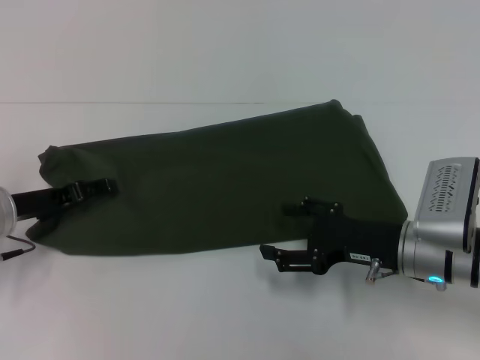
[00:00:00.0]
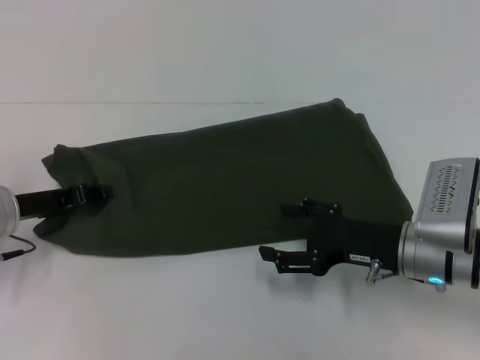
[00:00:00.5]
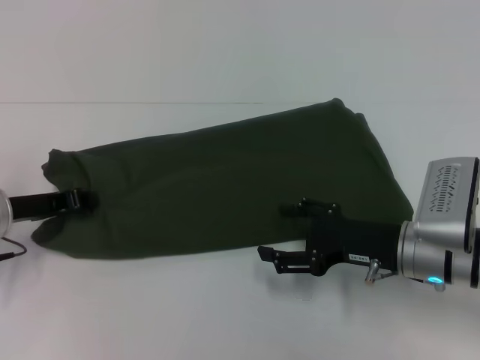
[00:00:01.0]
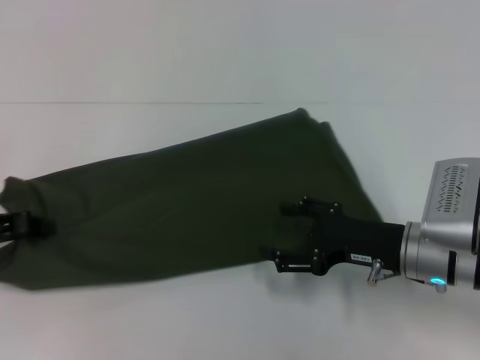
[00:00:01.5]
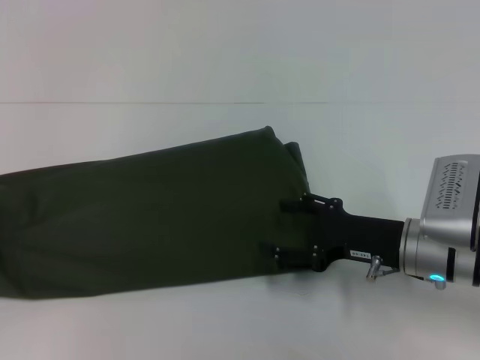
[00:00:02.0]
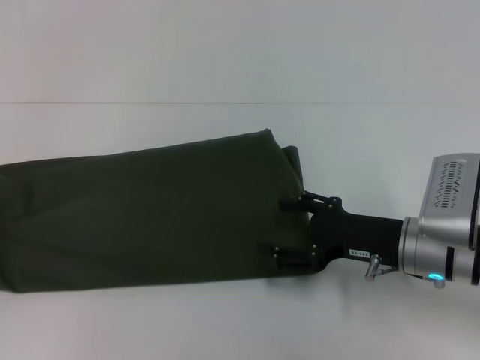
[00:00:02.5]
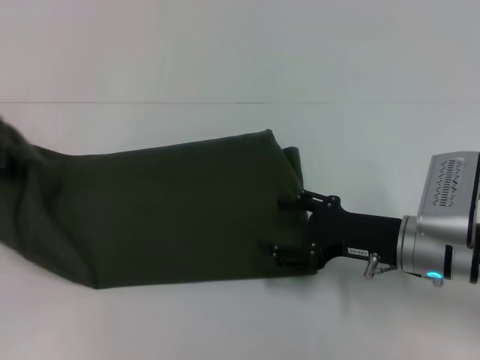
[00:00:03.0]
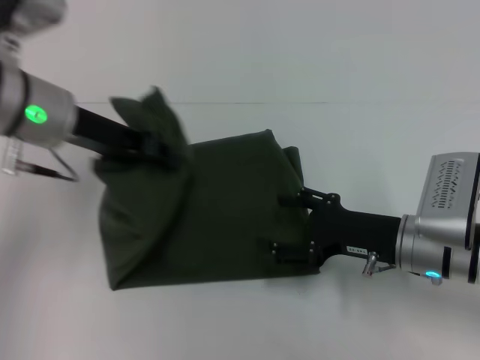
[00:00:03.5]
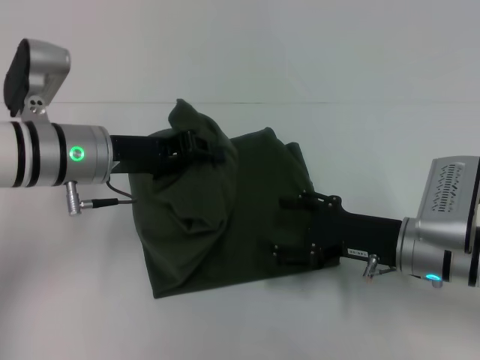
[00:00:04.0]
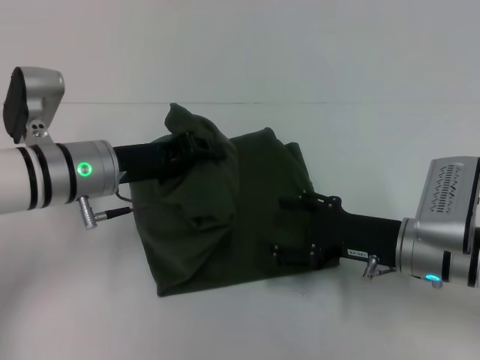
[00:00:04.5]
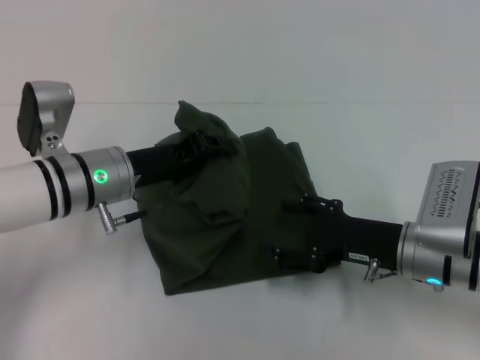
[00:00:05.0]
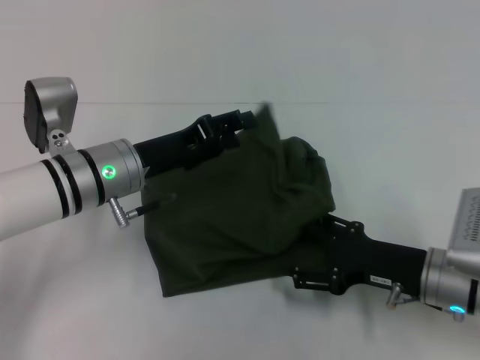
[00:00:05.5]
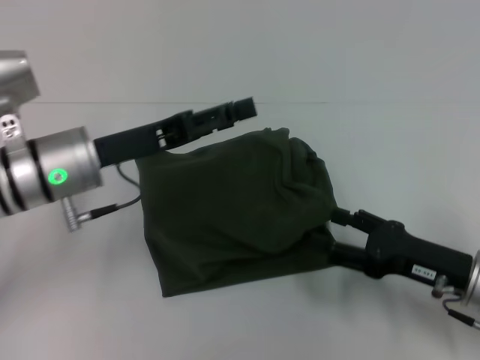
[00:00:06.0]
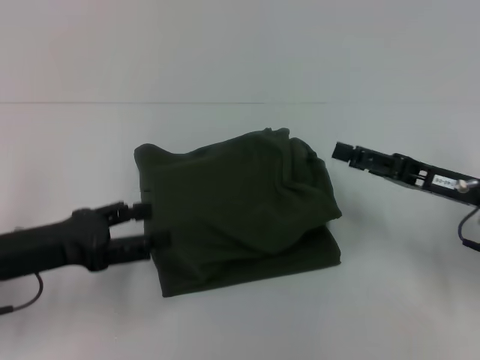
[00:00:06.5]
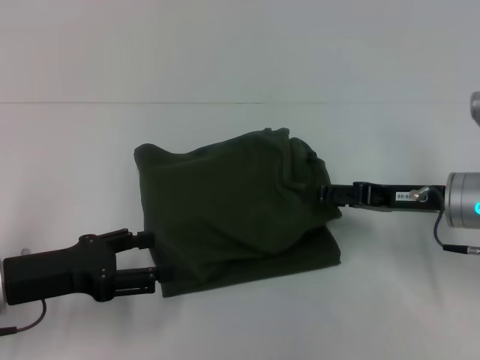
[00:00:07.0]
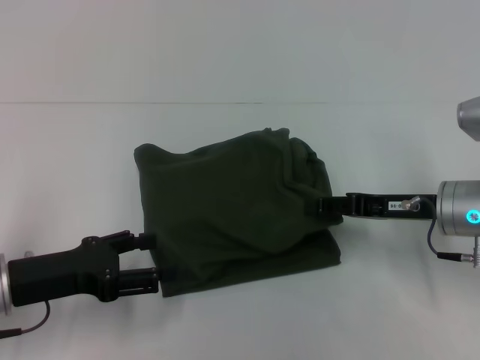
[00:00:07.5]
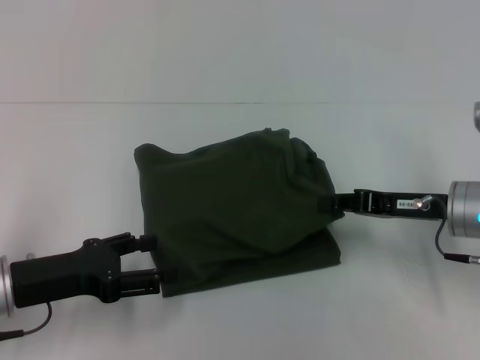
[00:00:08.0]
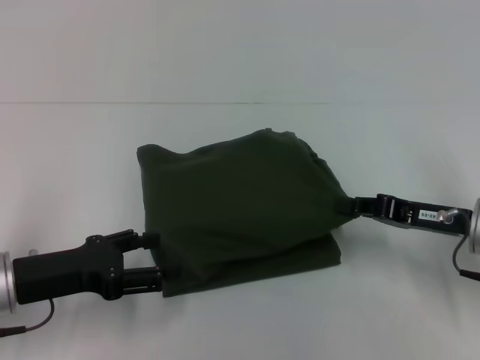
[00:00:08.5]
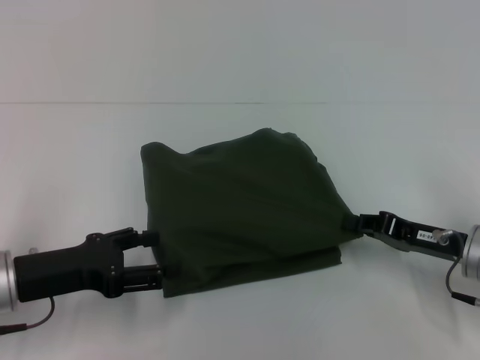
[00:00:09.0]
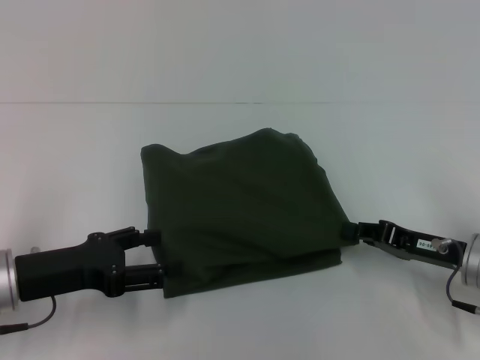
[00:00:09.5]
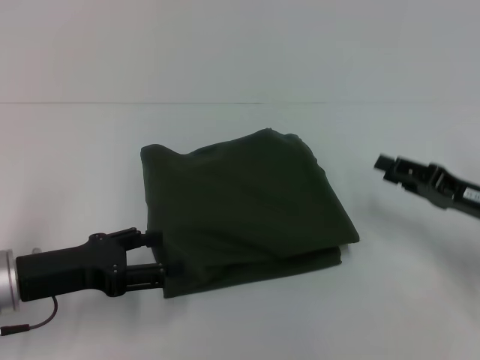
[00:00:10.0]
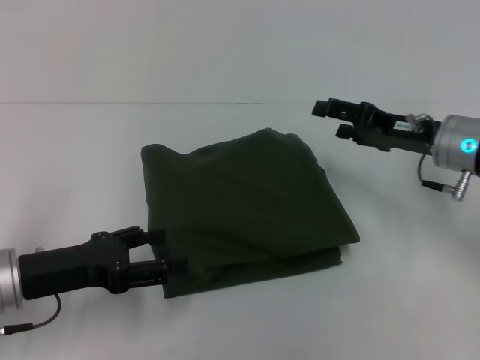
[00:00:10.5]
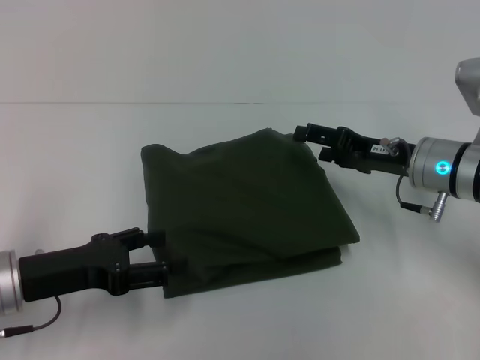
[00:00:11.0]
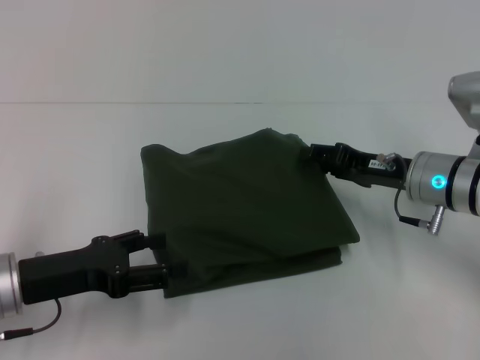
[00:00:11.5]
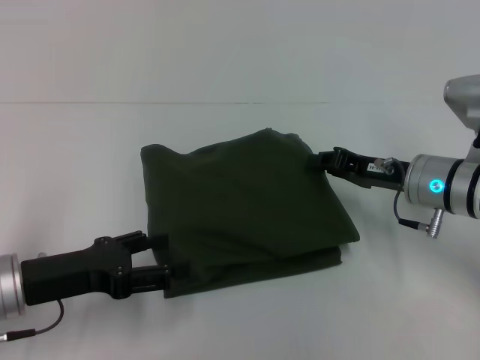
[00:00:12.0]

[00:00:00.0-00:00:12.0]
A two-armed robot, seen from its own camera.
Step, 00:00:00.0 to 00:00:05.5: Fold the clothes with your left hand.
00:00:00.0 to 00:00:02.0: The left gripper moves to the left, approximately 10 cm, and closes its fingers.
00:00:02.0 to 00:00:04.0: The left gripper is displaced to the right by about 20 cm.
00:00:04.0 to 00:00:06.0: The left gripper opens. The right gripper is displaced to the right by about 5 cm.
00:00:06.0 to 00:00:08.0: The right gripper travels forward by about 10 cm, and closes up. Meanwhile the left gripper goes about 15 cm backward, to the left and downward.
00:00:08.0 to 00:00:10.0: The right gripper moves to the right, approximately 5 cm.
00:00:10.0 to 00:00:12.0: The right gripper shifts some 10 cm to the left and forward, and opens, then closes once more.

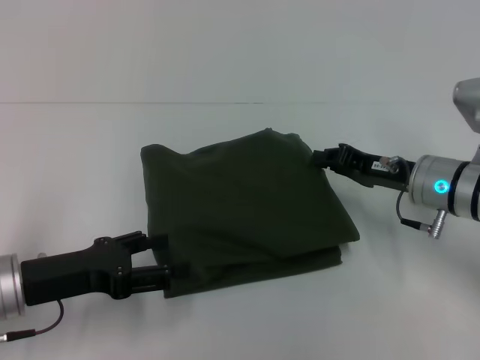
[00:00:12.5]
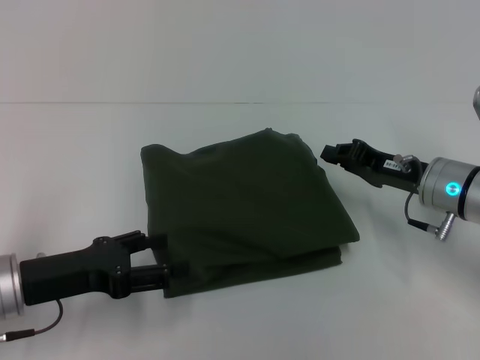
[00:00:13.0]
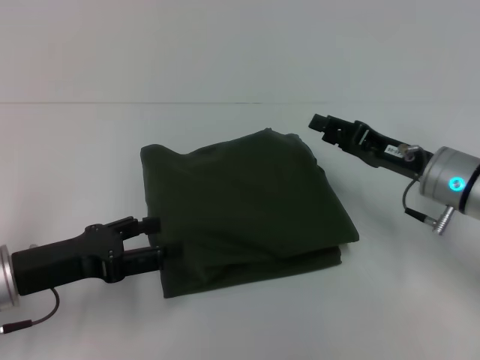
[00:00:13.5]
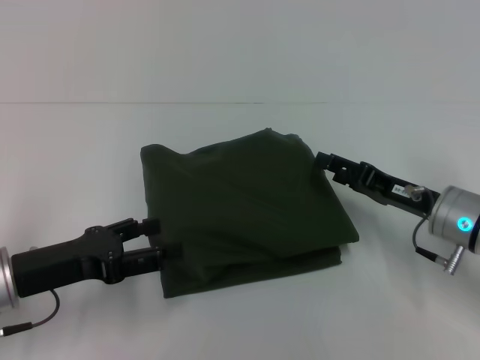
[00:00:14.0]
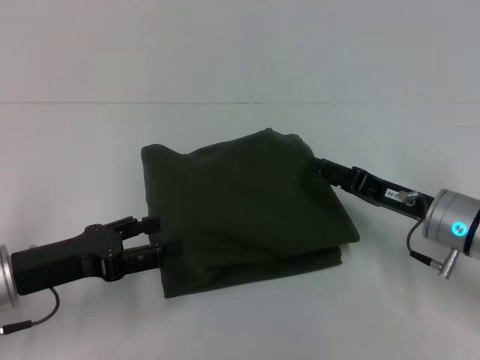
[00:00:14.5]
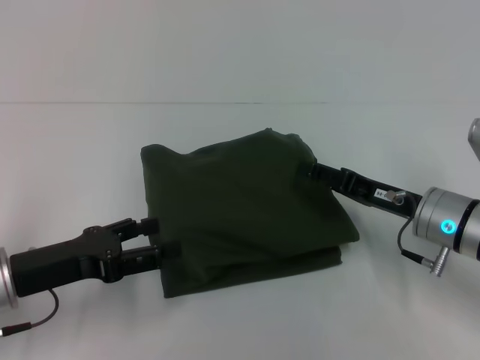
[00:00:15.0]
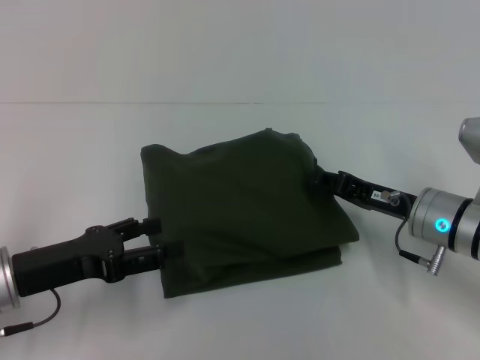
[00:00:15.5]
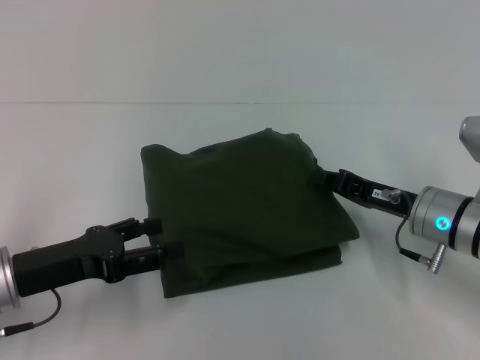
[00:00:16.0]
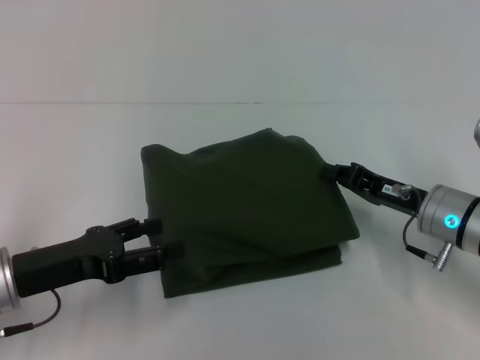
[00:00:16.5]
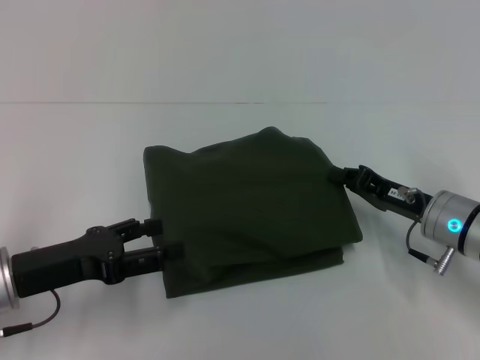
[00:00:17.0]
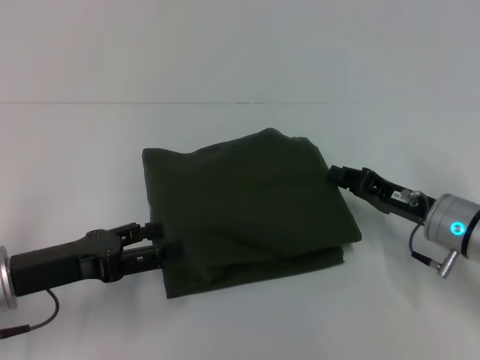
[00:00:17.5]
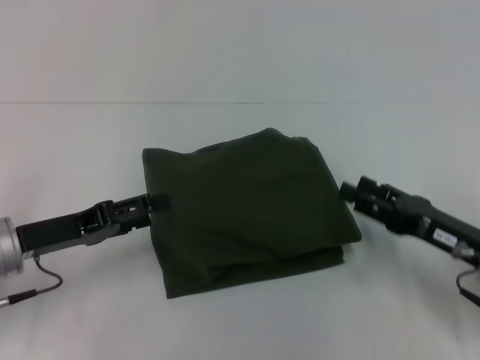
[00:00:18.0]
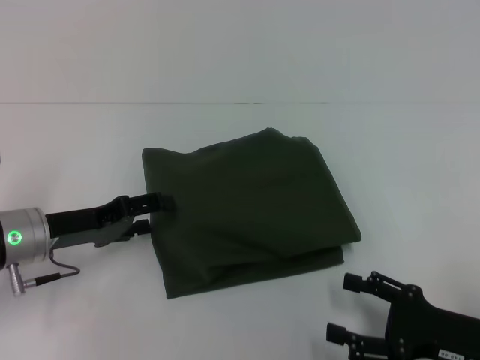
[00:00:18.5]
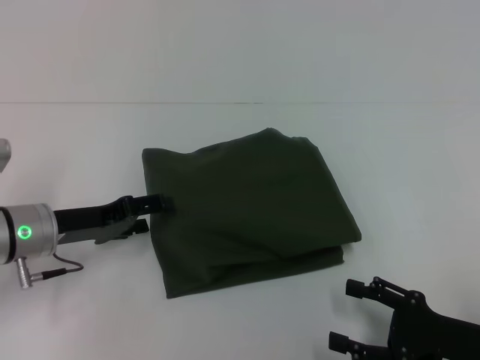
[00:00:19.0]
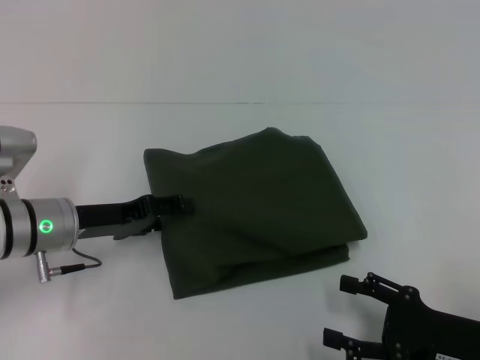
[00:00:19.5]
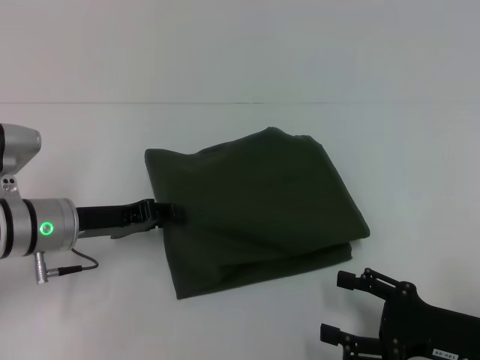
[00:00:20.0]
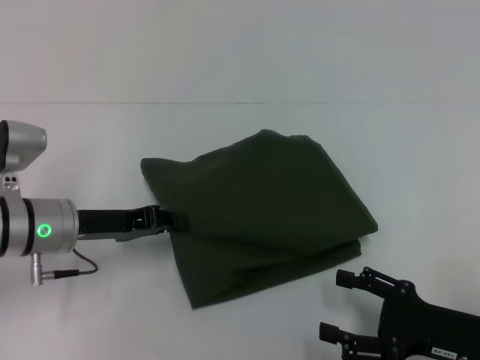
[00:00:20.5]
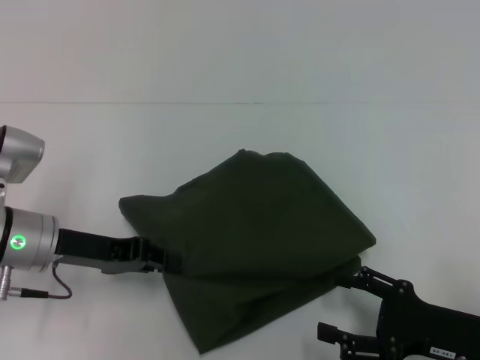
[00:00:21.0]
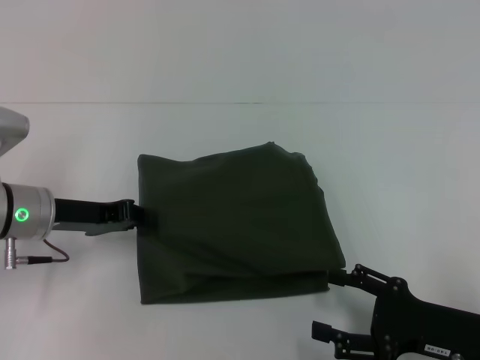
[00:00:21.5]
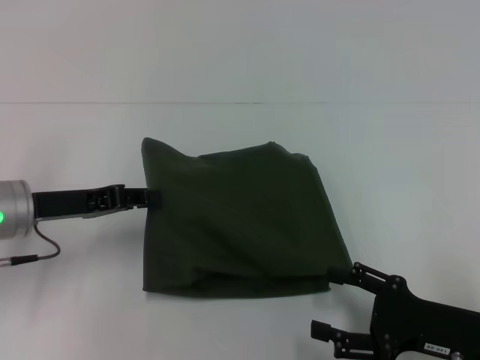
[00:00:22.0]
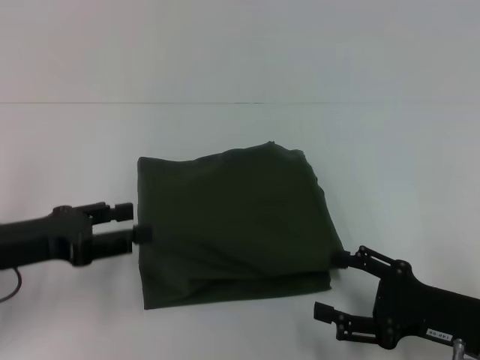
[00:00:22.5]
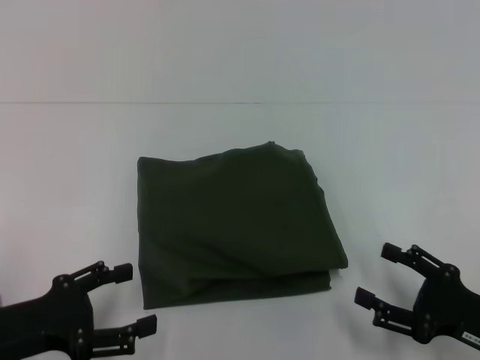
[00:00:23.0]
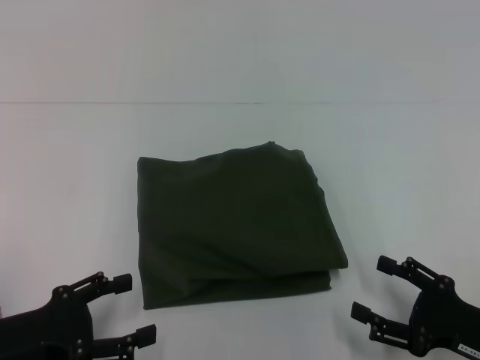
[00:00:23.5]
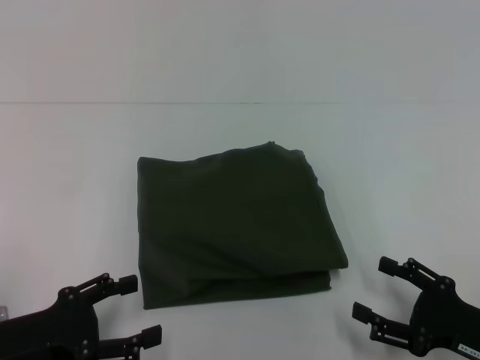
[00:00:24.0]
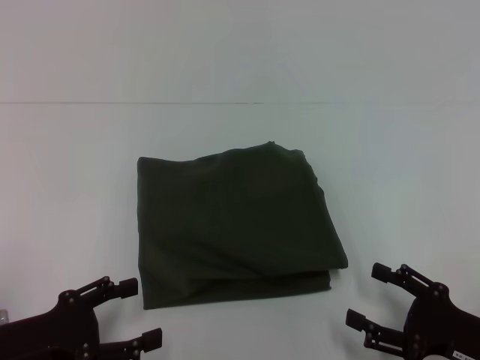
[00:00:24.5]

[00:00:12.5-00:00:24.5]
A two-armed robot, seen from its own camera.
00:00:12.5 to 00:00:14.5: The right gripper opens its fingers.
00:00:14.5 to 00:00:16.5: The right gripper closes up.
00:00:16.5 to 00:00:18.5: The left gripper is displaced forward by some 5 cm. The right gripper moves backward, roughly 15 cm, and opens its fingers.
00:00:18.5 to 00:00:20.5: The left gripper closes up.
00:00:20.5 to 00:00:22.5: The left gripper goes roughly 10 cm backward and to the left.
00:00:22.5 to 00:00:24.5: The left gripper travels backward and downward by some 10 cm, and opens its fingers.
